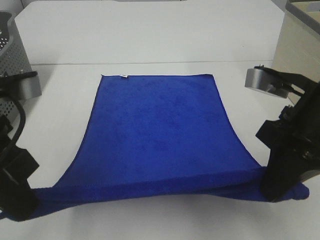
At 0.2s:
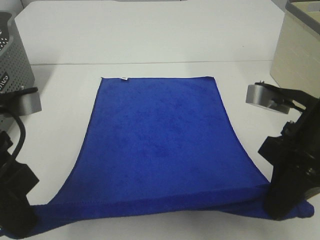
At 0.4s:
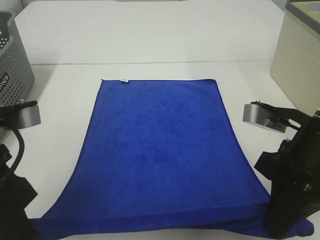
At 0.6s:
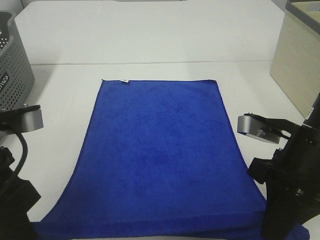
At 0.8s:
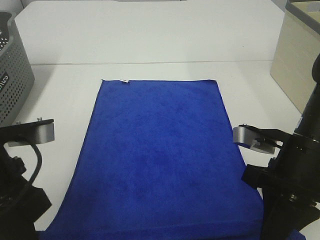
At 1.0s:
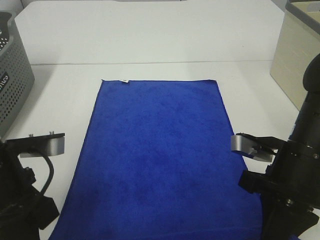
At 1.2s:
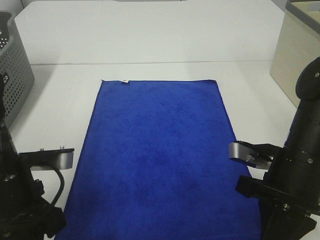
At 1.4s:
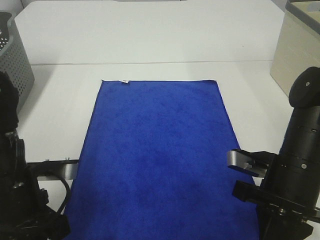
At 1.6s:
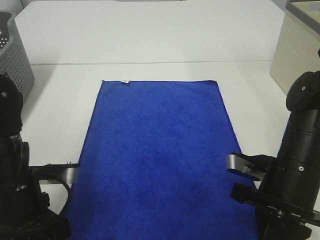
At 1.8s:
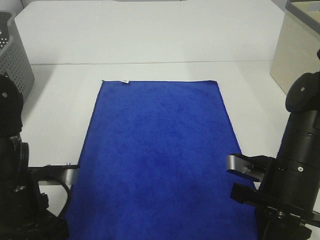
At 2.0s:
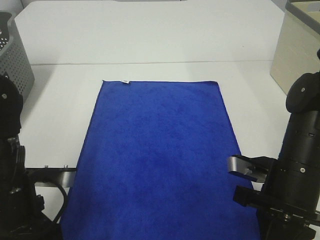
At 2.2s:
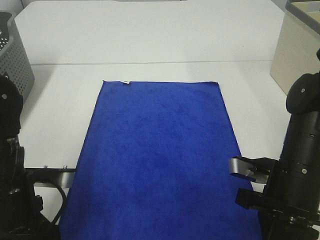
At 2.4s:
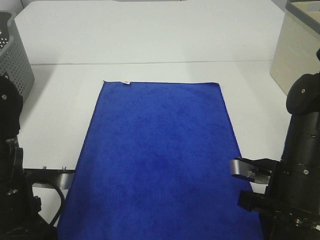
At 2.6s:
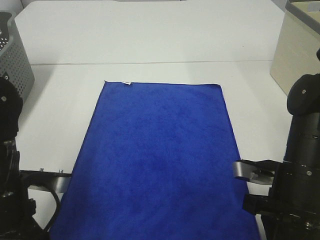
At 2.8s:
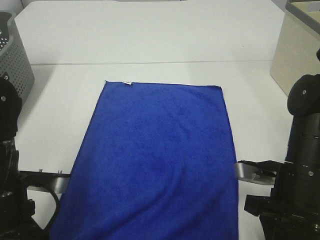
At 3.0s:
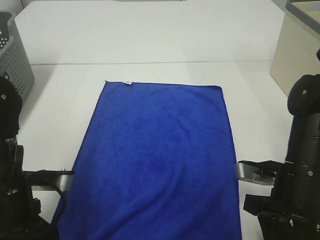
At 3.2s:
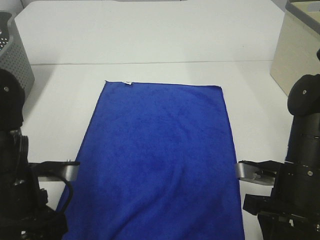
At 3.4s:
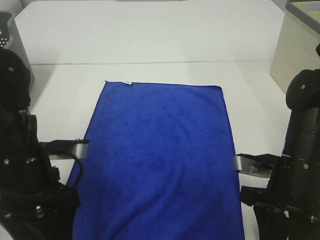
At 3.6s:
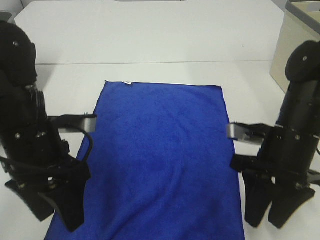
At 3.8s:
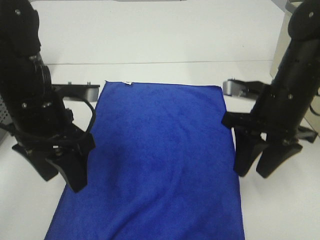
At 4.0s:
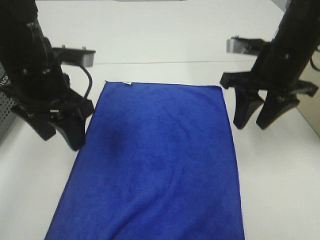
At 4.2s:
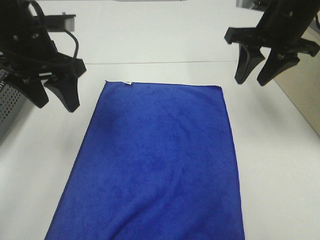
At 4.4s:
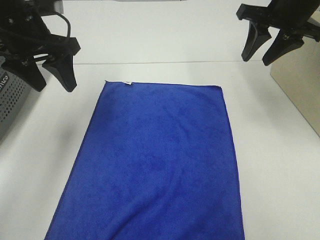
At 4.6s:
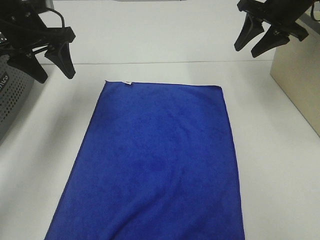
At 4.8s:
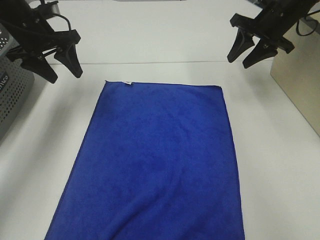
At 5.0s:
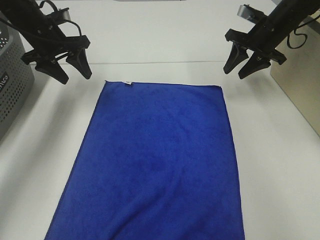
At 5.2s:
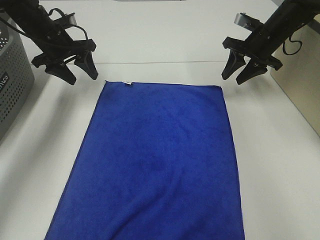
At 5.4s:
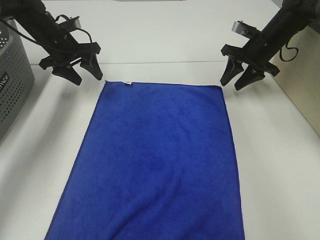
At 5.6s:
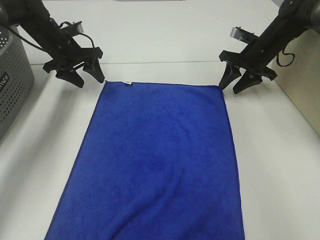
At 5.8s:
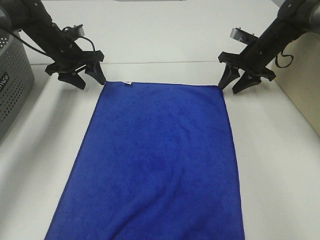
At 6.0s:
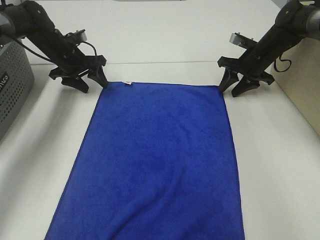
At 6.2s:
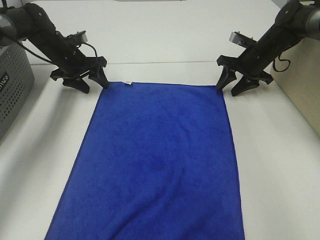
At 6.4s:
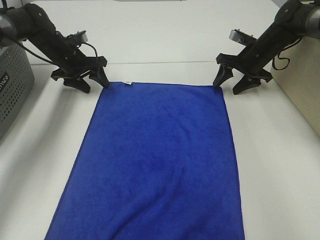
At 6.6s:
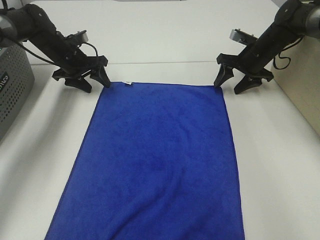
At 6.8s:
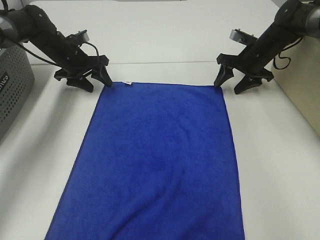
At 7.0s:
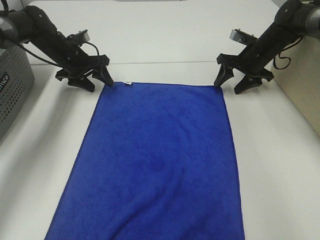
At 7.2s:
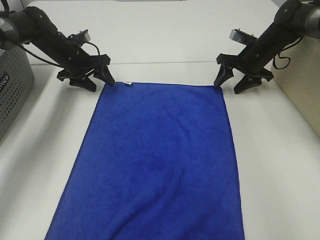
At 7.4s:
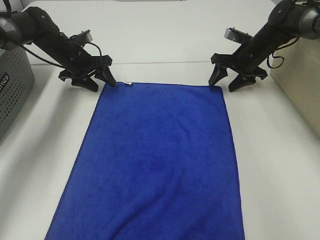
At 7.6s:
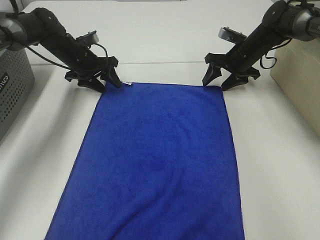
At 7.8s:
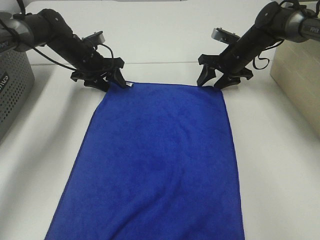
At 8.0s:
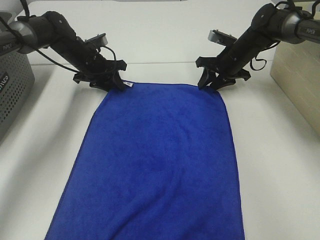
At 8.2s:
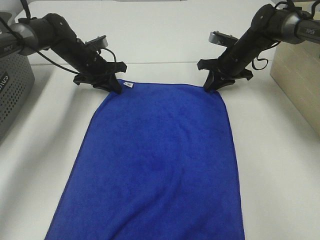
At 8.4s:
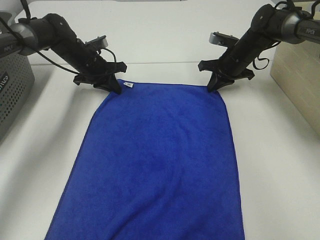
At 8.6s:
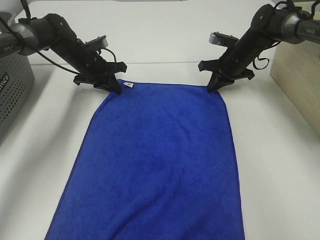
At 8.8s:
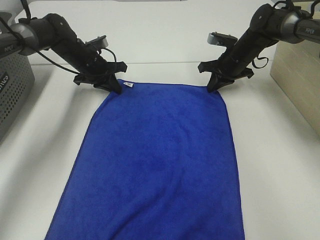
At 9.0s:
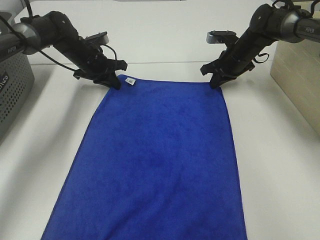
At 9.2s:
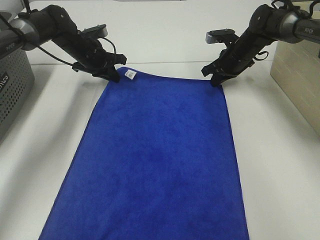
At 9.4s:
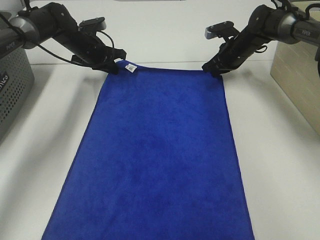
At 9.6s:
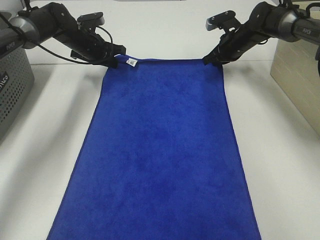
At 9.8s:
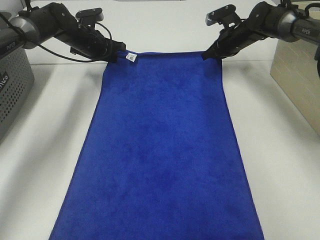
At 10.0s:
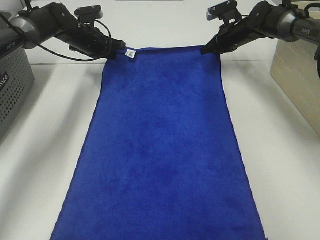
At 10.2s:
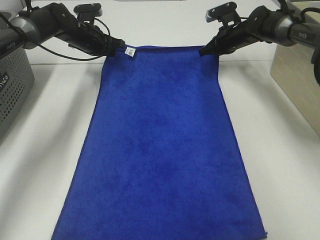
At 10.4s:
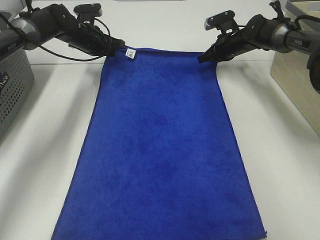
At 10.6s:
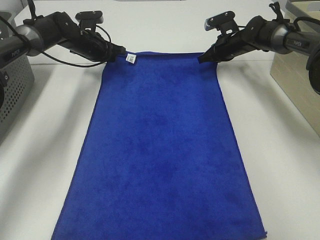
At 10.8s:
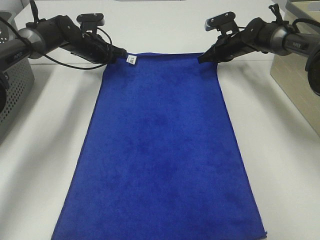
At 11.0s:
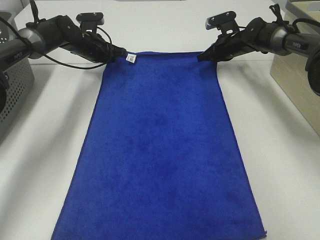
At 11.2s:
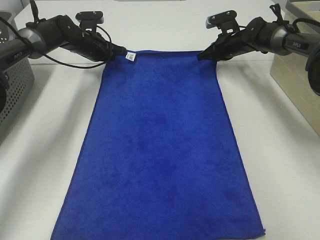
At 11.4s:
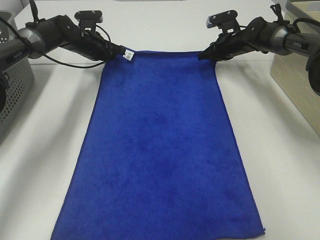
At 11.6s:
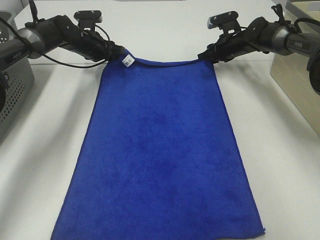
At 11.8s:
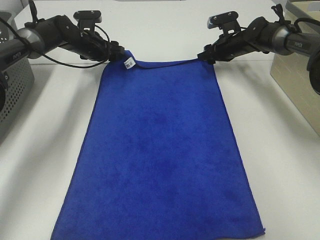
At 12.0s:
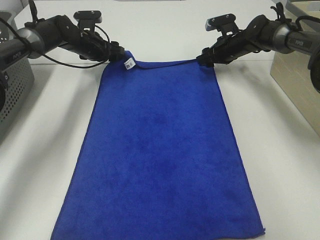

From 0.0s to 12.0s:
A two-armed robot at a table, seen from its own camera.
Task of the whole recording: Remove the towel and place it.
Step, from 0.0s to 6.0s: Left hand:adjust the blue towel.
Step, from 0.0s to 6.0s: Right hand:adjust the blue towel.
From 0.0s to 1.6s: The two grippers go some 10 cm downward.
From 1.6s to 3.0s: The right gripper opens up; the left gripper opens its fingers.
From 3.0s to 4.4s: The grippers both shift forward and upward by roughly 25 cm.
From 4.4s to 6.0s: The left gripper shifts approximately 20 cm forward and downward; the right gripper moves downward and forward, some 20 cm.
From 6.0s to 7.6s: The grippers move only a little.
From 7.6s to 9.0s: The right gripper closes up, while the left gripper closes.
From 10.4s to 12.0s: The right gripper opens, while the left gripper opens its fingers.

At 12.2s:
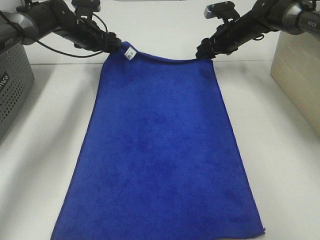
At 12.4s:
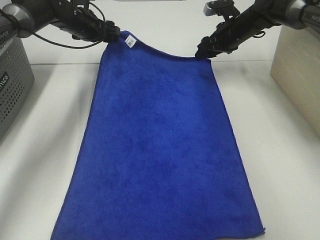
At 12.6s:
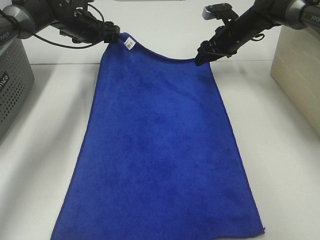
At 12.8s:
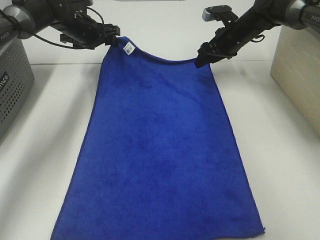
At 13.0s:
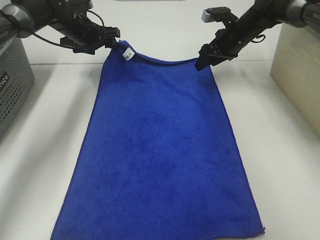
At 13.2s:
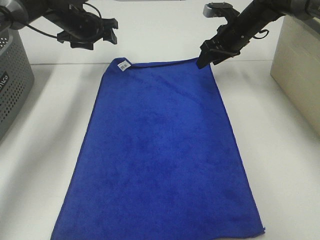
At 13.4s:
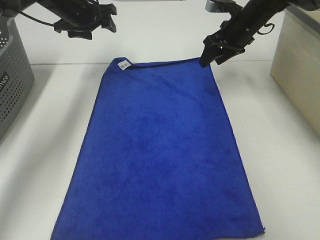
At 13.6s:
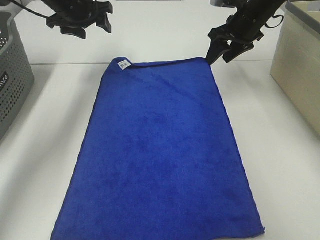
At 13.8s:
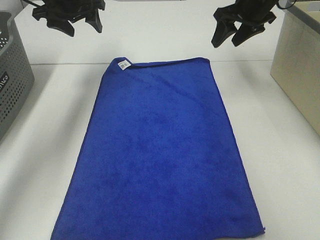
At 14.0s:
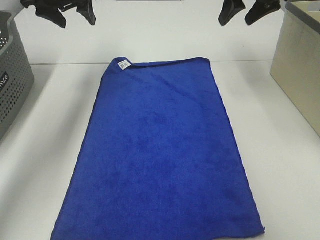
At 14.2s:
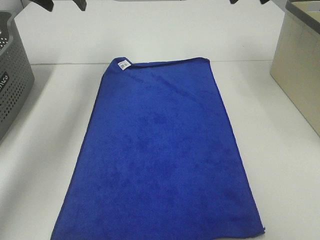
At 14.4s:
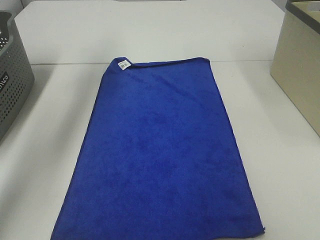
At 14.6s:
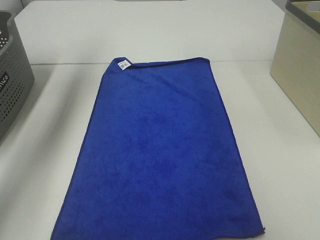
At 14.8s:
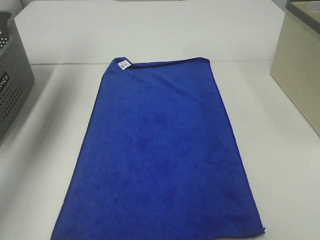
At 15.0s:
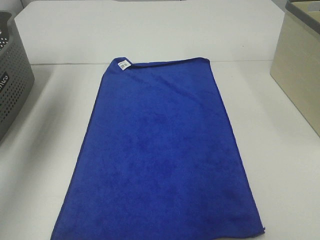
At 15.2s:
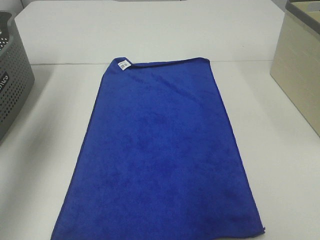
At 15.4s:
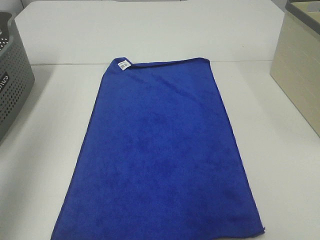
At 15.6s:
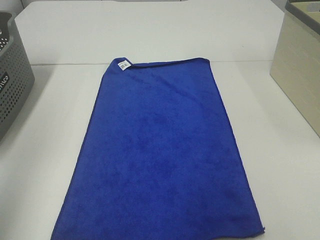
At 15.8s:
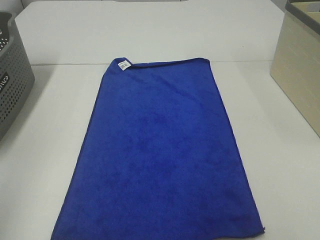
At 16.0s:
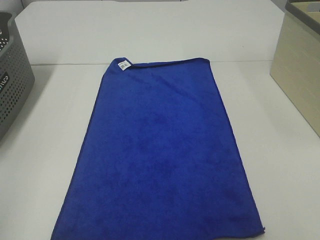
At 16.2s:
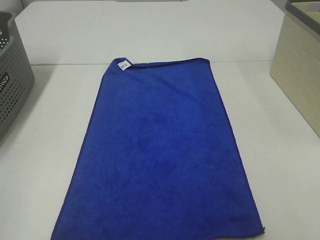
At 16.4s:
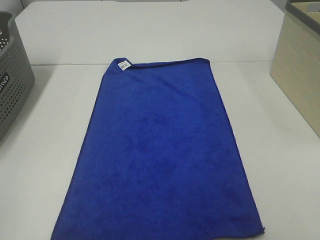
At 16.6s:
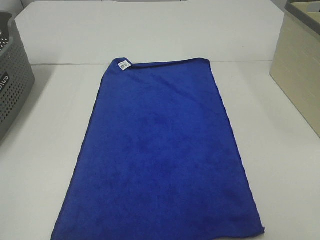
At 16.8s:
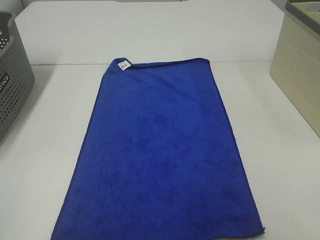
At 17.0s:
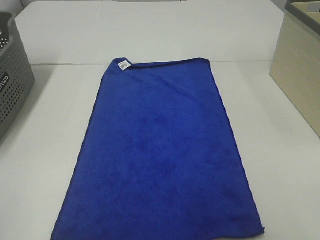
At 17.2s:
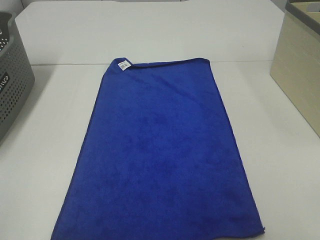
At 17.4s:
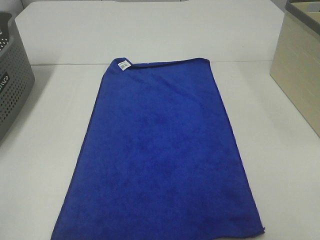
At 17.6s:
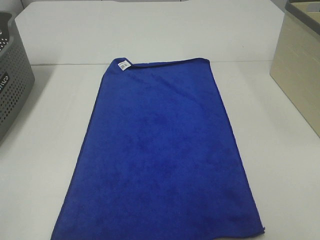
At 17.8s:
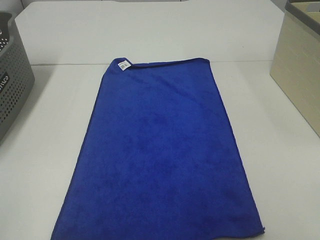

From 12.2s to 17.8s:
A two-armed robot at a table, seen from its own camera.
Task of the whole recording: Remove the towel and place it.
From 12.2s to 13.6s: The left gripper travels upward by about 10 cm. Meanwhile the right gripper heads upward and backward, covering roughly 10 cm.
From 13.6s to 15.0s: The right gripper travels backward, upward and to the right by some 35 cm; the left gripper shifts roughly 25 cm backward, upward and to the left.
From 15.0s to 16.4s: The left gripper is displaced backward by approximately 35 cm.

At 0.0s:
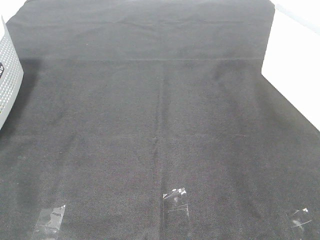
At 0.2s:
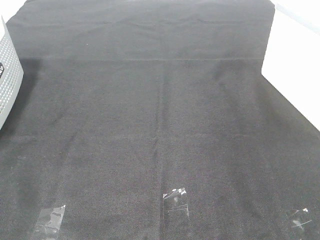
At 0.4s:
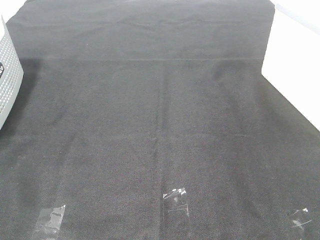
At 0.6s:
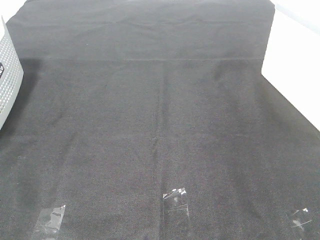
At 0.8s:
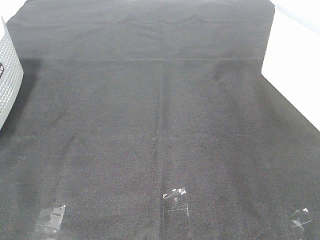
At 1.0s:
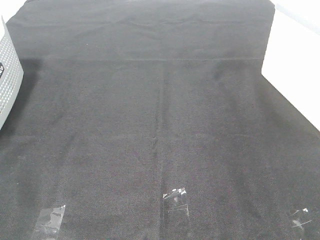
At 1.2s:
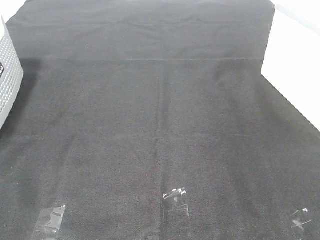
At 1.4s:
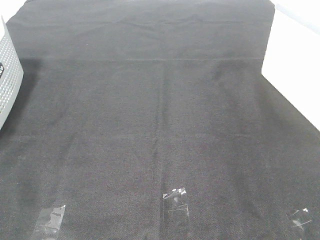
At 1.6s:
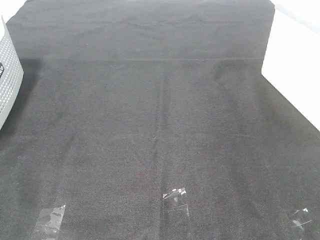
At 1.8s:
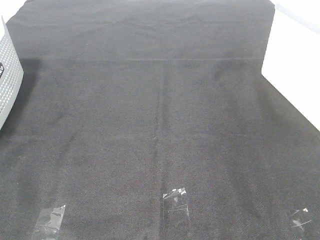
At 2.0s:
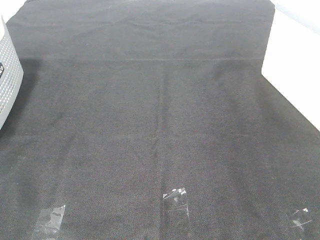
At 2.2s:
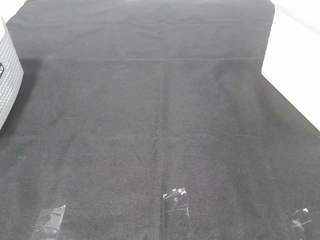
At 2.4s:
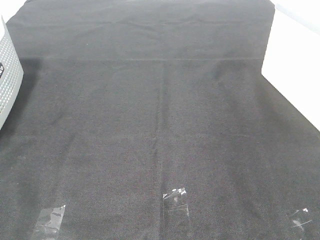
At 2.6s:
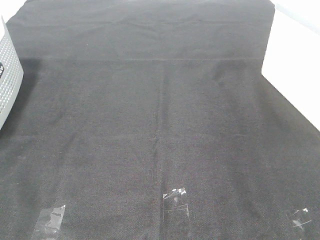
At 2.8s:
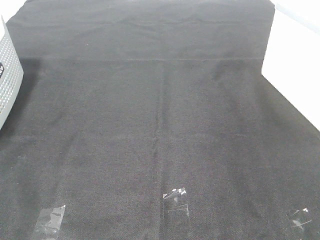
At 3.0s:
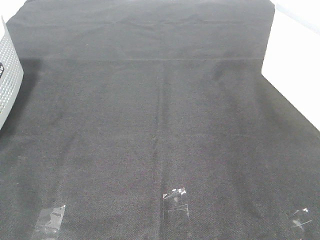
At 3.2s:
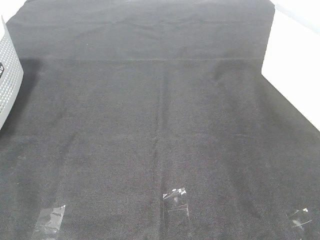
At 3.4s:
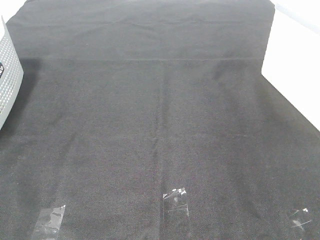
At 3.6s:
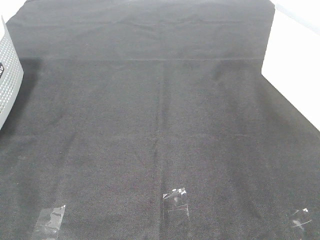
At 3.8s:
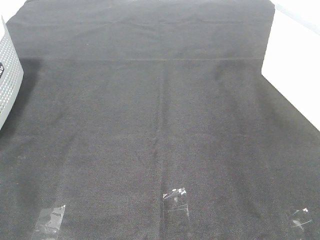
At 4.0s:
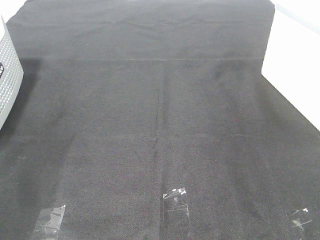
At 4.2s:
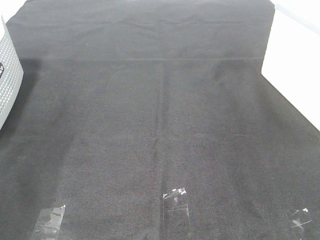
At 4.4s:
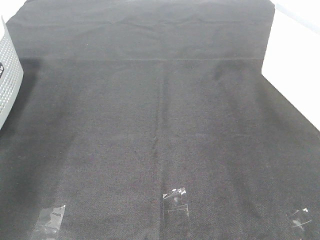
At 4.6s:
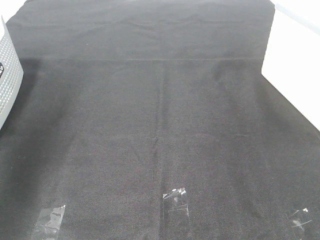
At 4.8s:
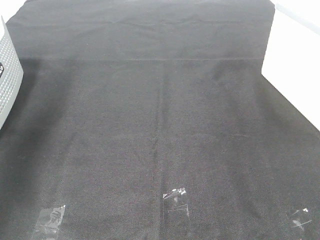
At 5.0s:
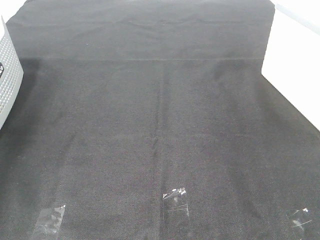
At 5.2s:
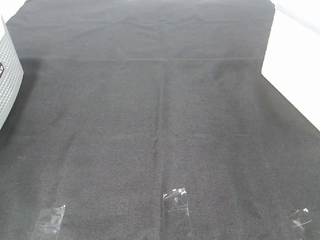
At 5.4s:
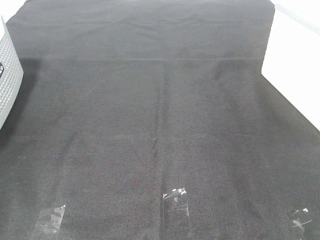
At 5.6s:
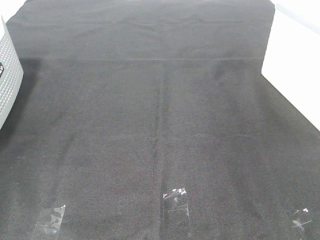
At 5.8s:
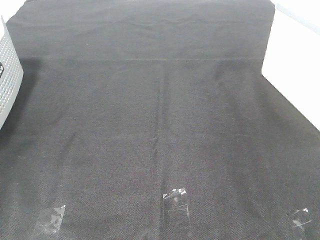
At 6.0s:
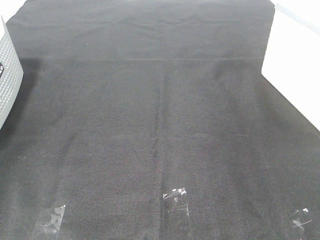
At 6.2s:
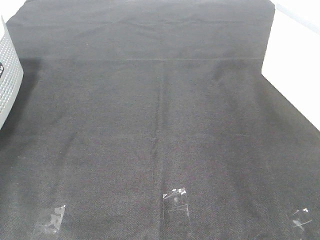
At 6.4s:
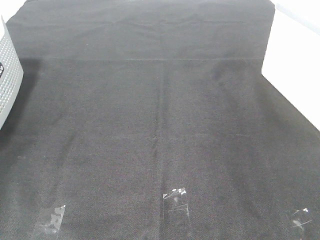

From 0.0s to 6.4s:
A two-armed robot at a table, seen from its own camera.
Task of the whole recording: Remove the towel and place it.
From 0.0s to 3.2s: The two grippers keep their place.
From 3.2s to 4.8s: The left gripper heads forward, covering approximately 30 cm.
From 4.8s to 6.4s: The left gripper moves downward, to the left and forward, some 25 cm.
